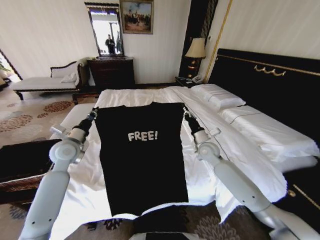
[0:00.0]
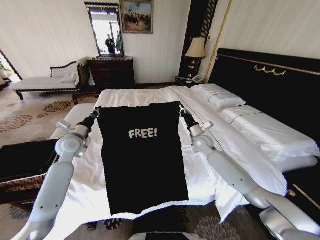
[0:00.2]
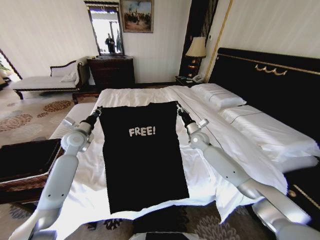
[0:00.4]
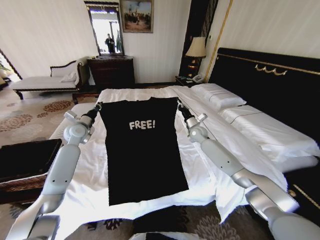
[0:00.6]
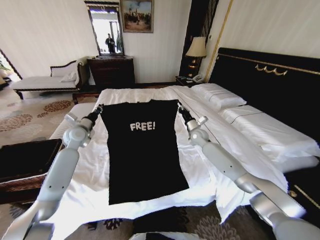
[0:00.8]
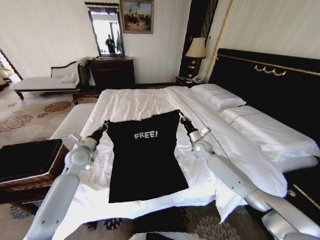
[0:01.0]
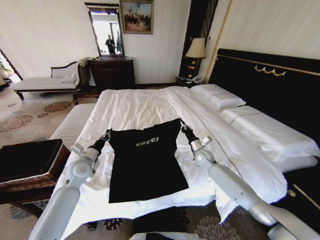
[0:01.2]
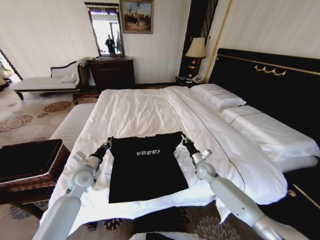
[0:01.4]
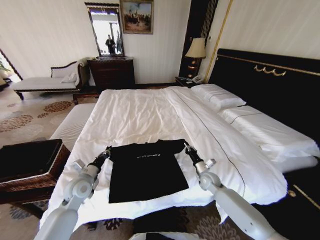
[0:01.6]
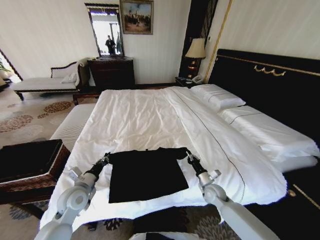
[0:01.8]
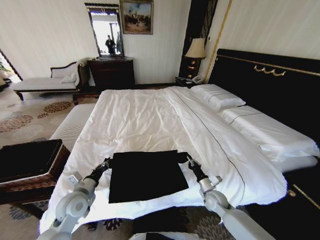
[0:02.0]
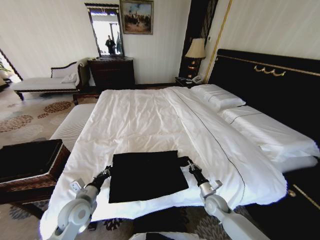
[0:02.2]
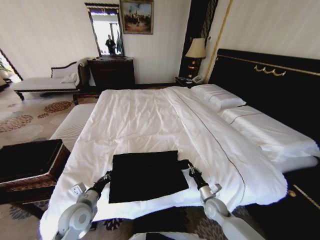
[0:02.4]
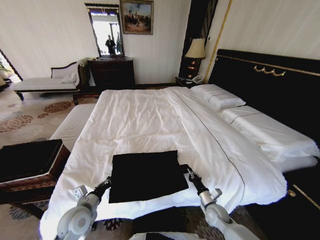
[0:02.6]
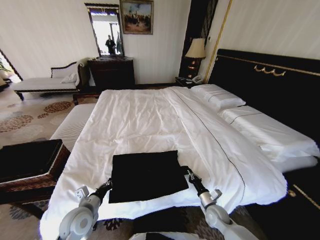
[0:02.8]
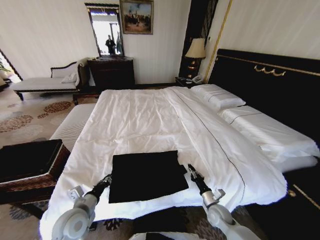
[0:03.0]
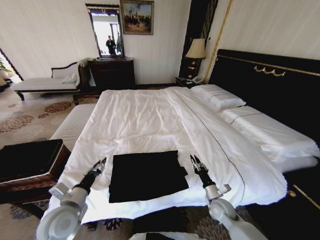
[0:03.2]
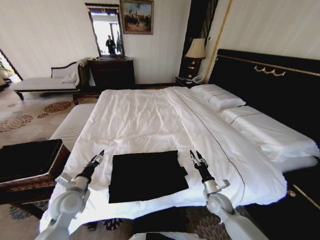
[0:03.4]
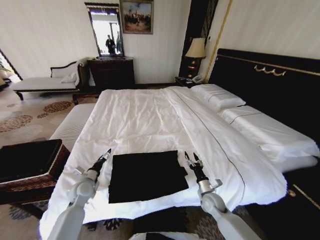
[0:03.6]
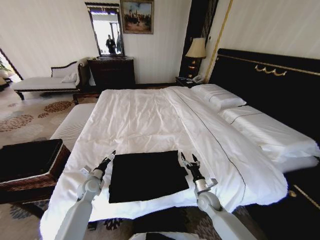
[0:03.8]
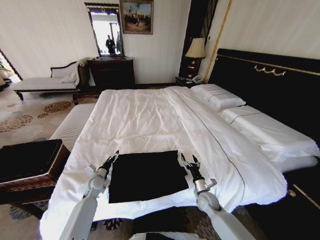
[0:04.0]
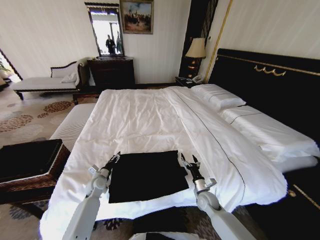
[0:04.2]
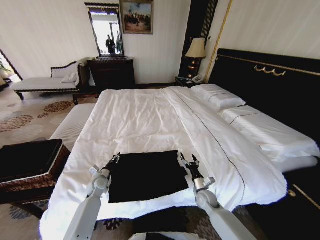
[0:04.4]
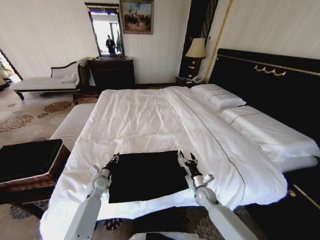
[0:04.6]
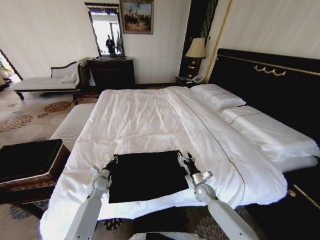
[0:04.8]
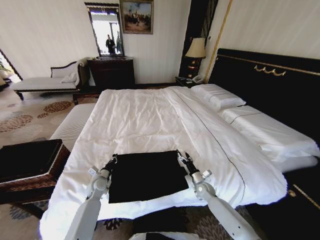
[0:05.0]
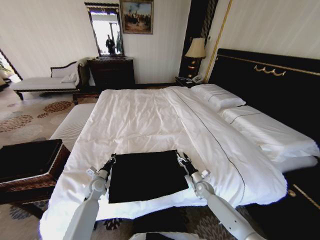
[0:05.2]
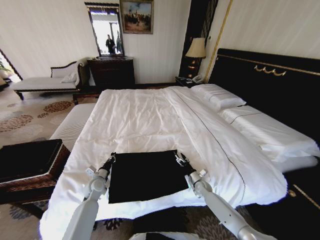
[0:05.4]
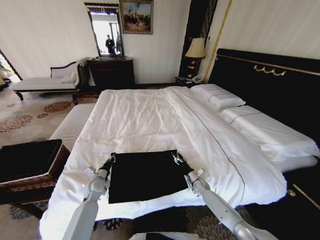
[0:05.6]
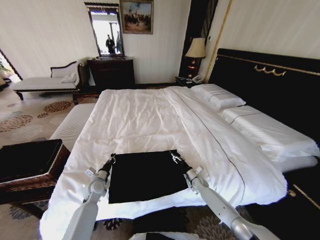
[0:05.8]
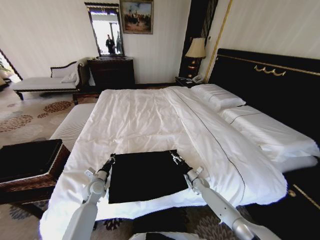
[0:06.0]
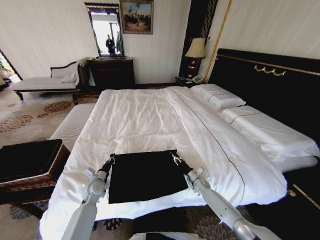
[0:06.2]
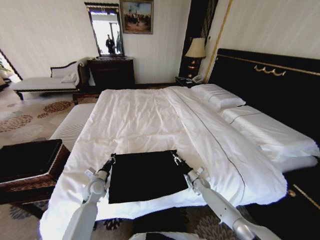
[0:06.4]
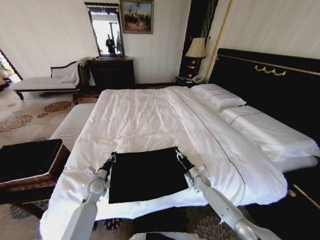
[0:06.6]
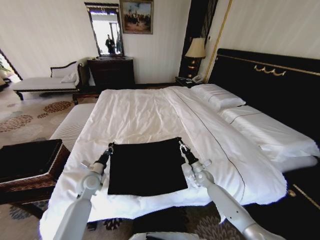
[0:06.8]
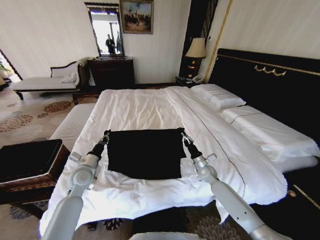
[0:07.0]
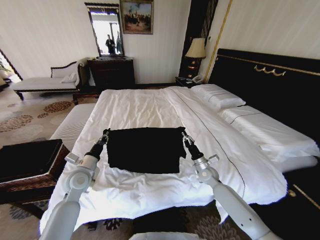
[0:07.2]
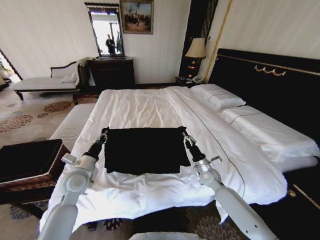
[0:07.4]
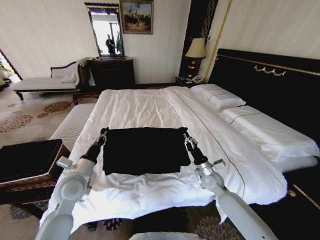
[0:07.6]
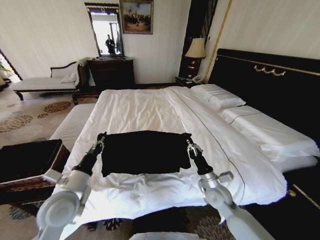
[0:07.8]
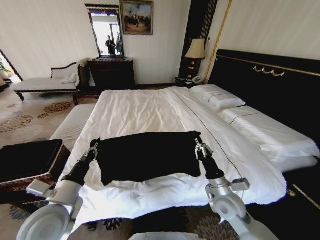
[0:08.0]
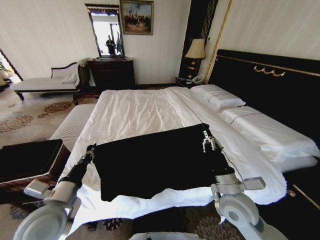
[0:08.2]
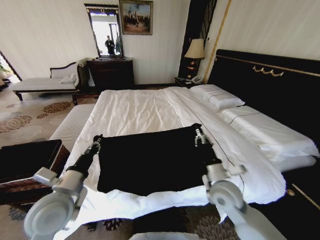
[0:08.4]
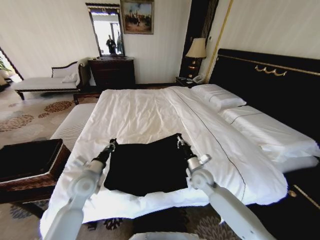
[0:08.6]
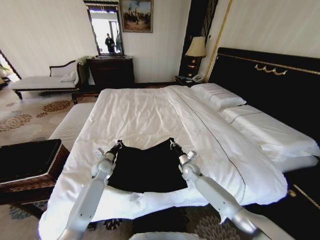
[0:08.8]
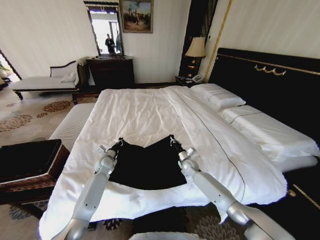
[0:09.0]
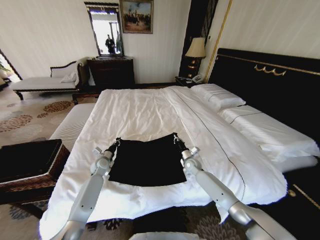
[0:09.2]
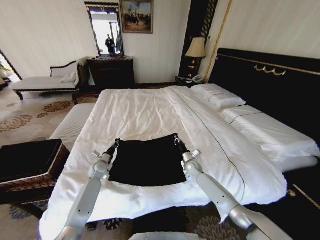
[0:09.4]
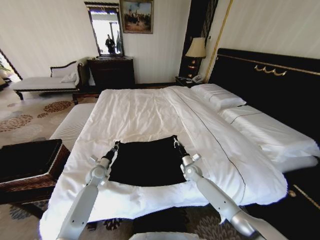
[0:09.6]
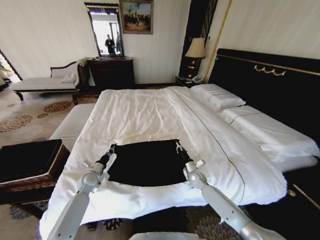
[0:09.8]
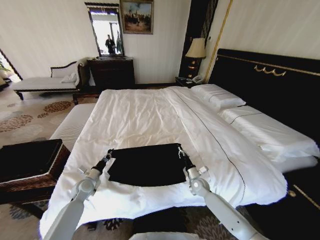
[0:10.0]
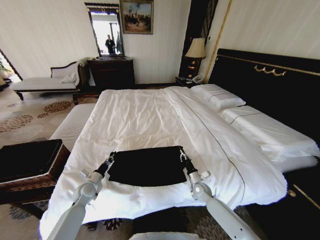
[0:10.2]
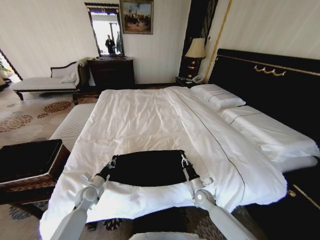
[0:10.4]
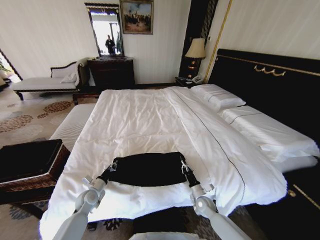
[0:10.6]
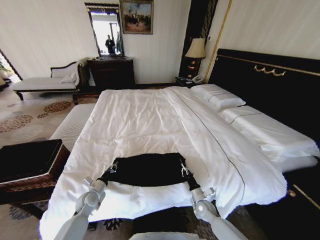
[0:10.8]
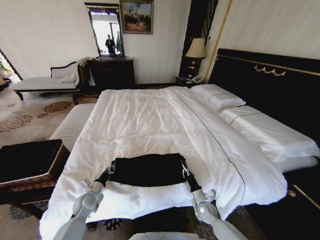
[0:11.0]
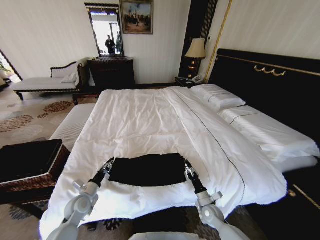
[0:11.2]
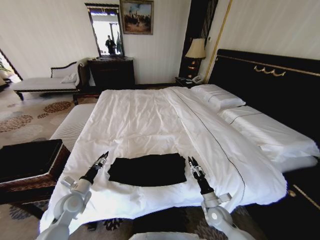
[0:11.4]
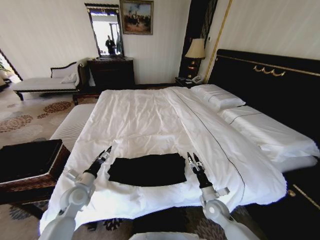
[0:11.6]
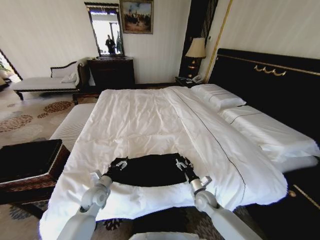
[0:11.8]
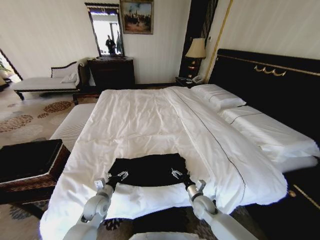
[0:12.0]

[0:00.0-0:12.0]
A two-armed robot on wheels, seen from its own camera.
Task of the whole recording: Fold the clothes on the bed and place them into the basket.
0:00.0 to 0:01.6: The right gripper travels downward by approximately 15 cm, and moves roughly 15 cm forward and comes back; the left gripper shifts about 15 cm downward and backward.
0:01.6 to 0:03.0: The left gripper moves backward, some 10 cm. The right gripper is displaced backward and downward by approximately 15 cm.
0:03.0 to 0:04.4: The left gripper is displaced forward and downward by roughly 20 cm, and opens up, while the right gripper moves forward, roughly 5 cm, and opens its fingers.
0:04.4 to 0:06.0: The left gripper closes. Meanwhile the right gripper goes approximately 10 cm forward and downward.
0:06.0 to 0:07.6: The grippers both shift upward by roughly 20 cm. The right gripper closes its fingers.
0:07.6 to 0:09.0: The left gripper shifts some 25 cm forward and downward. Meanwhile the right gripper heads forward, downward and to the left, covering some 15 cm.
0:09.0 to 0:10.4: The right gripper is displaced backward and downward by roughly 15 cm. The left gripper shifts some 15 cm backward.
0:10.4 to 0:12.0: The right gripper opens its fingers, while the left gripper travels to the right by roughly 10 cm, moves some 10 cm upward and comes back, and opens up.

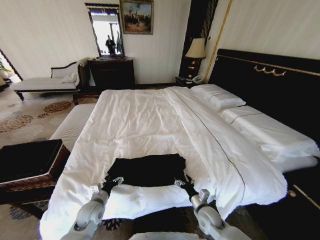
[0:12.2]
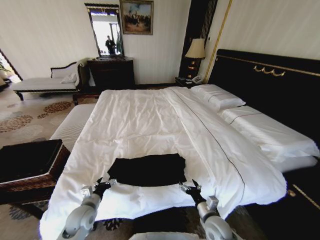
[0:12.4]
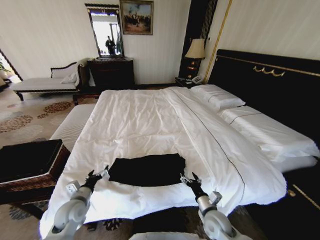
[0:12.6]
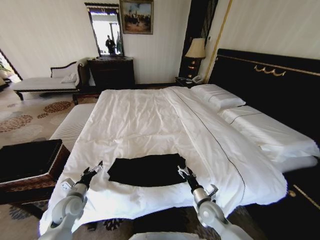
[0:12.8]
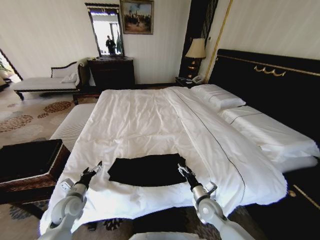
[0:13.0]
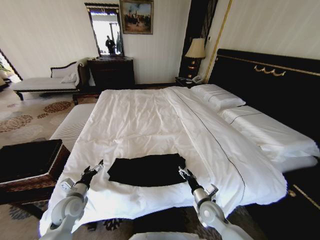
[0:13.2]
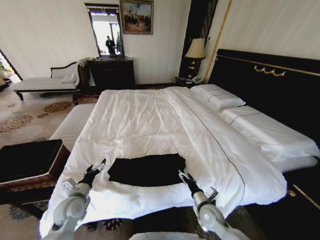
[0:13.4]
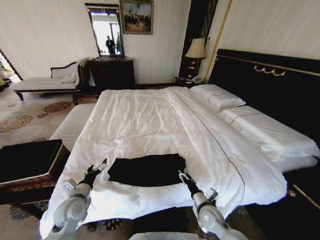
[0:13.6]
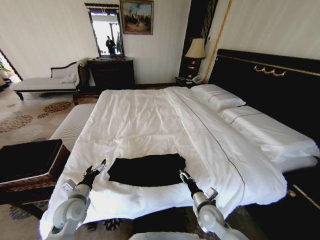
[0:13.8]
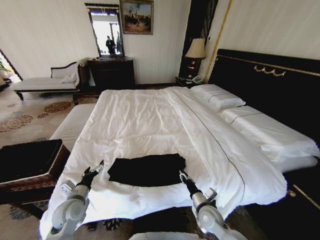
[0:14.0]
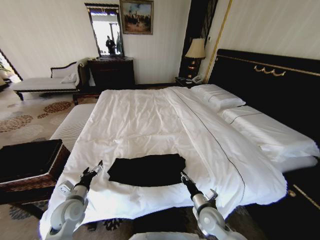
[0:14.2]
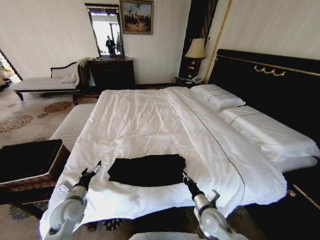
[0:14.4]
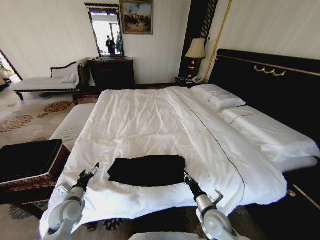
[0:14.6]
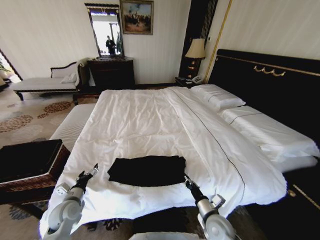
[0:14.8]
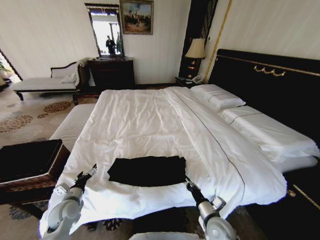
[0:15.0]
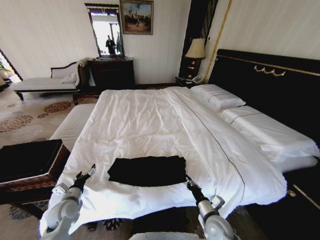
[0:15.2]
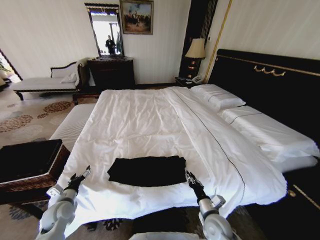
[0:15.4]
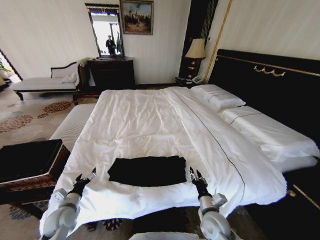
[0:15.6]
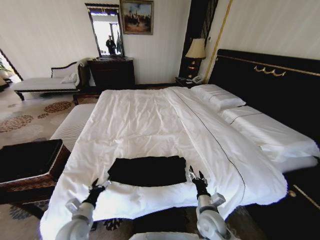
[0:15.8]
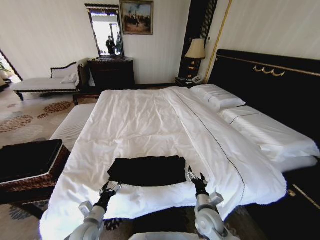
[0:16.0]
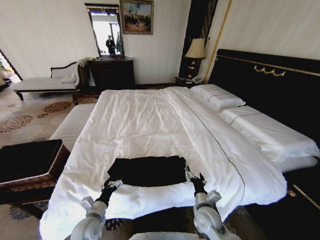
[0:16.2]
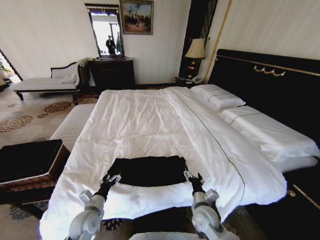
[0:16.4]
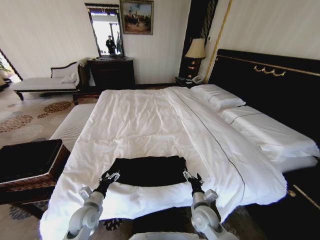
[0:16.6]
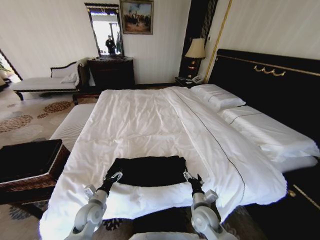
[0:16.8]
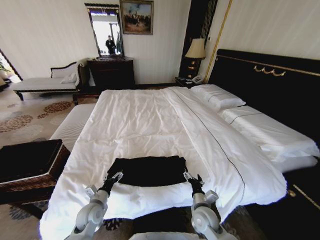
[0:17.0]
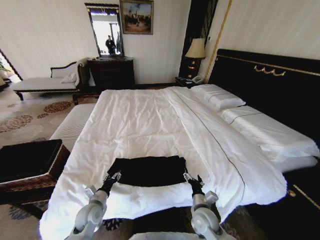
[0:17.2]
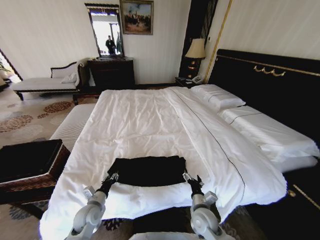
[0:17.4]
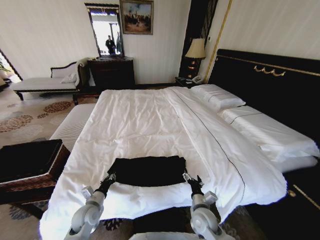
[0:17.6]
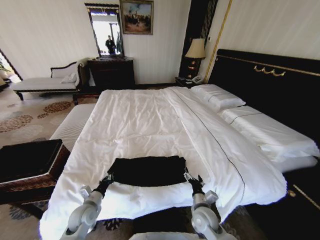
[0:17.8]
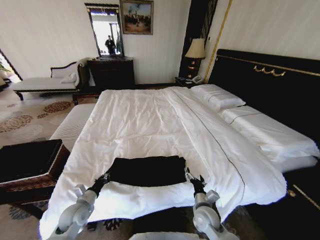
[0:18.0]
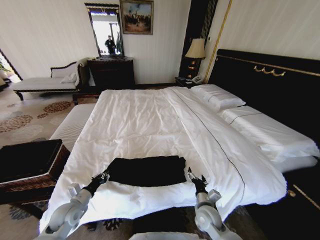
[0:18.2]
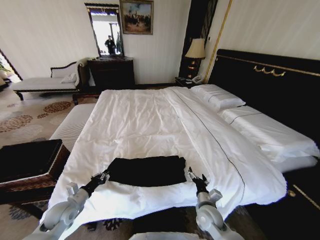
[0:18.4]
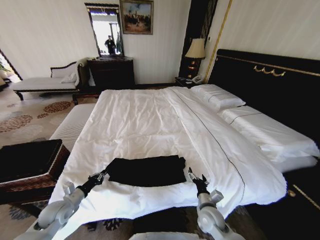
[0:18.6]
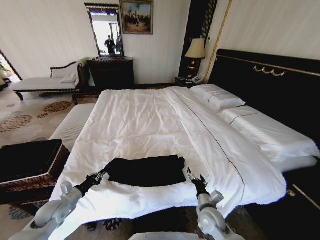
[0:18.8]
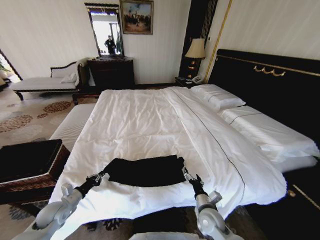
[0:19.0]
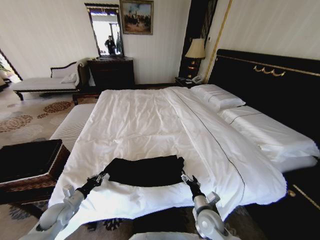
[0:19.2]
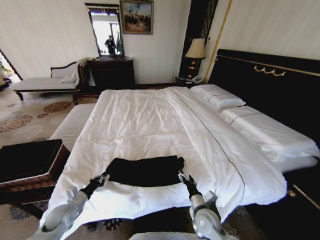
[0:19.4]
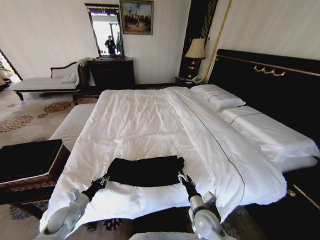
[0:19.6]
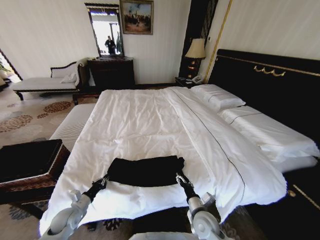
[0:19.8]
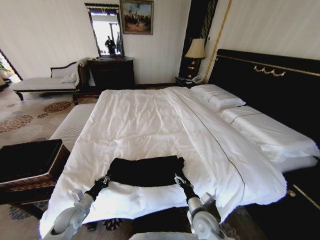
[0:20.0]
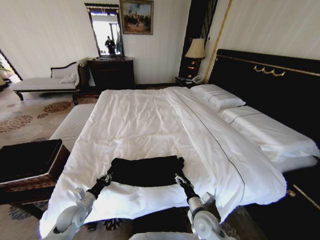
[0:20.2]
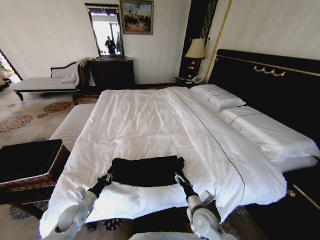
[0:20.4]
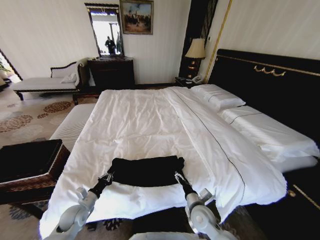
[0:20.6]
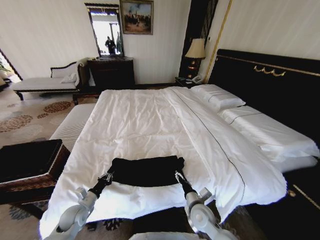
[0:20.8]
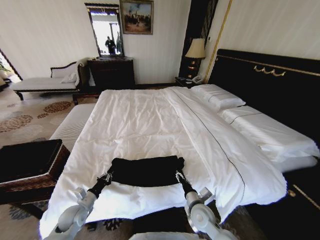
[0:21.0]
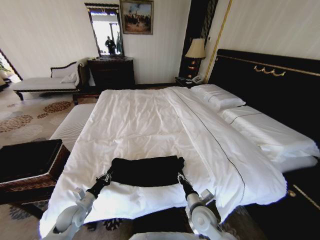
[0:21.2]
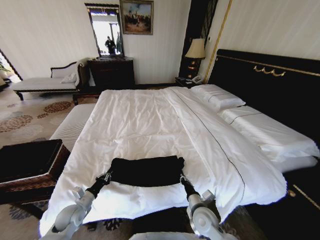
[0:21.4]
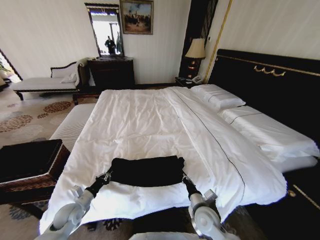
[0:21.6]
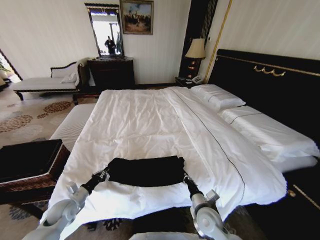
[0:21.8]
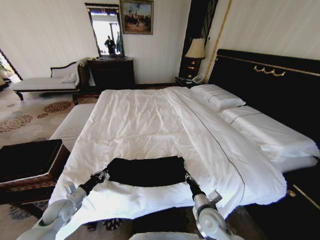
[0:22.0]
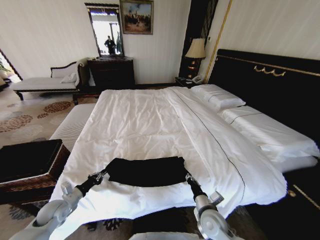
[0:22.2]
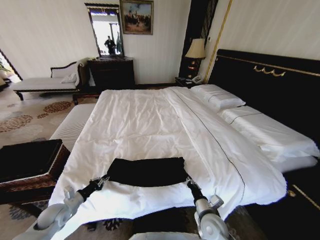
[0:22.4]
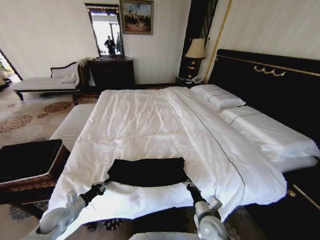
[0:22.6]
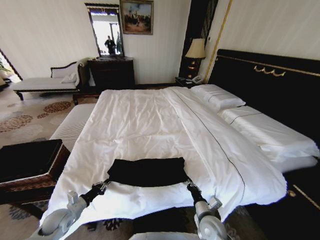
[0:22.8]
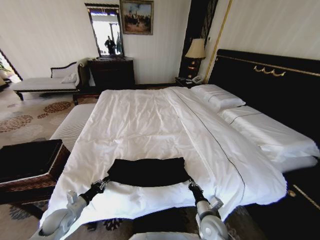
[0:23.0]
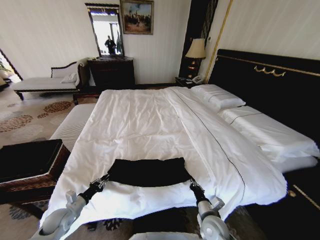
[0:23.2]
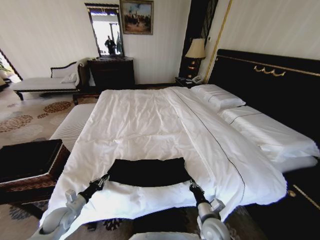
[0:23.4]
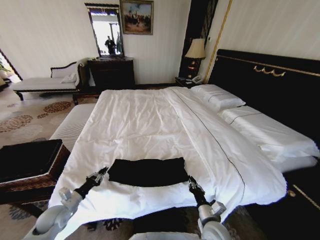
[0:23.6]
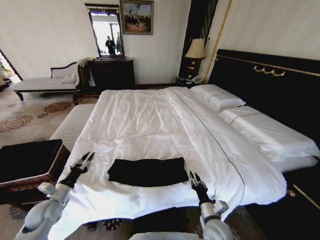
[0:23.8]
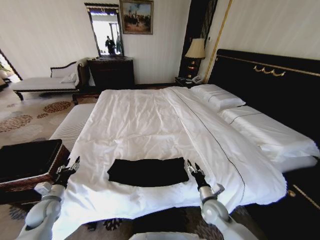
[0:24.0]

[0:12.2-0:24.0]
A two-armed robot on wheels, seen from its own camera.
Task of the whole recording: Fold the clothes on the bed and place them into the basket.
0:12.2 to 0:13.6: The left gripper is displaced upward and to the left by about 10 cm.
0:13.6 to 0:15.2: The left gripper ends up roughly 5 cm from where it was; the right gripper closes.
0:15.2 to 0:16.6: The left gripper travels to the right by about 10 cm. Meanwhile the right gripper ends up about 5 cm from where it was, and opens.
0:16.6 to 0:18.2: The left gripper is displaced to the left by about 5 cm, and closes its fingers.
0:19.6 to 0:21.0: The grippers make only small movements.
0:21.0 to 0:22.6: The right gripper changes place by approximately 5 cm, and closes its fingers. Meanwhile the left gripper heads to the left, covering some 5 cm.
0:22.6 to 0:24.0: The left gripper shifts by roughly 5 cm, and opens up. The right gripper heads forward, covering some 5 cm, and opens its fingers.
